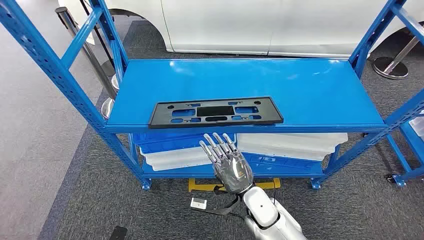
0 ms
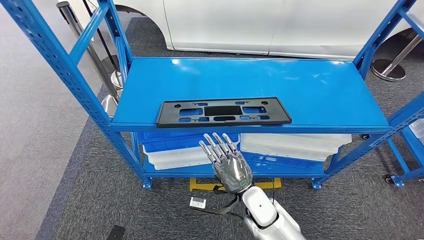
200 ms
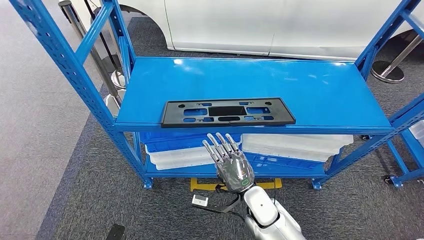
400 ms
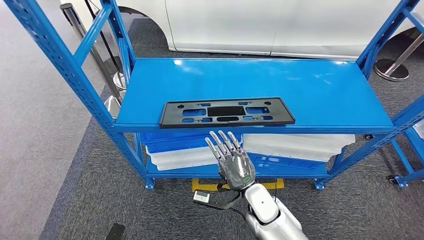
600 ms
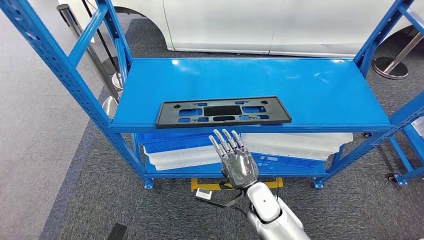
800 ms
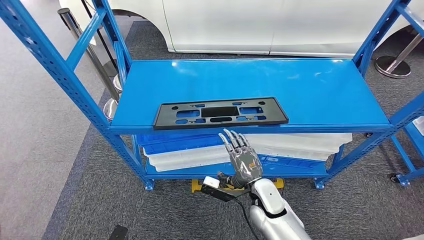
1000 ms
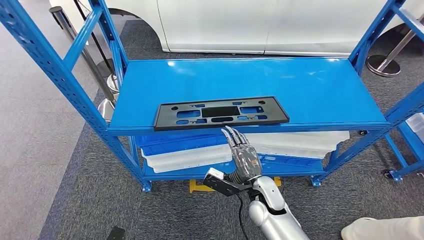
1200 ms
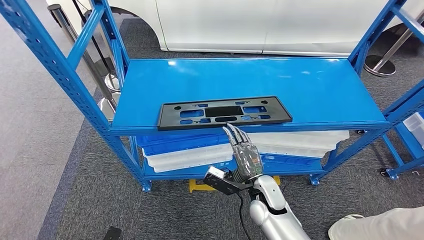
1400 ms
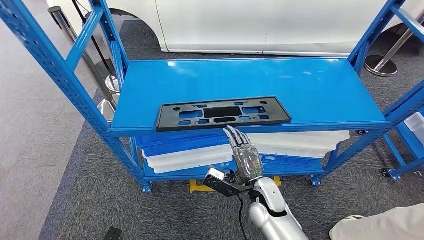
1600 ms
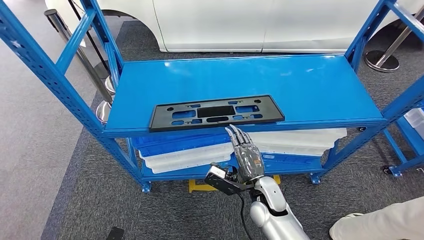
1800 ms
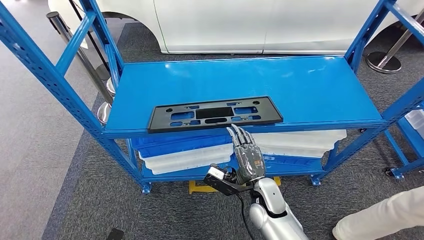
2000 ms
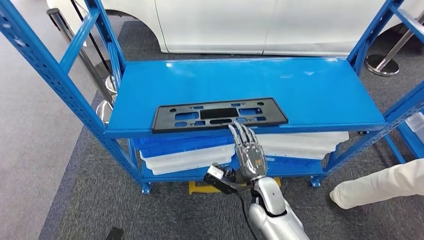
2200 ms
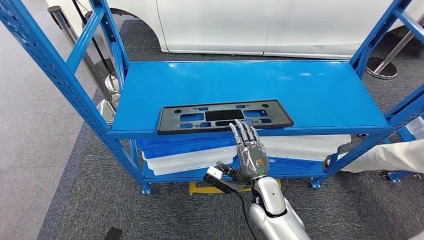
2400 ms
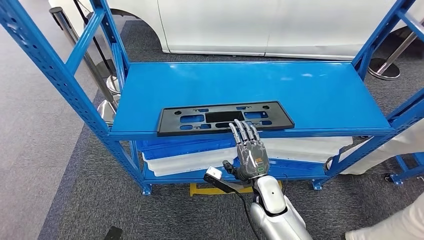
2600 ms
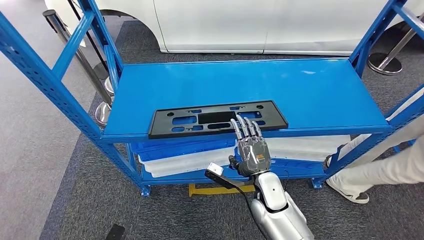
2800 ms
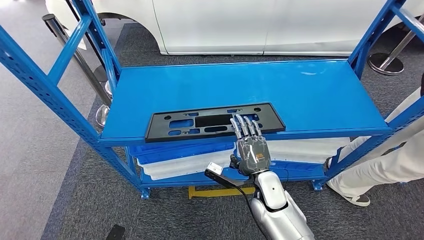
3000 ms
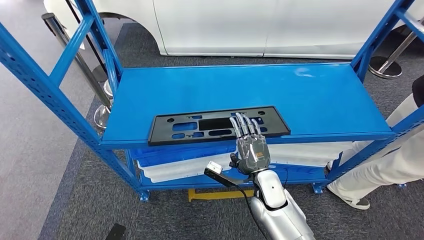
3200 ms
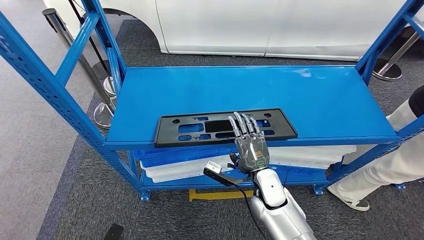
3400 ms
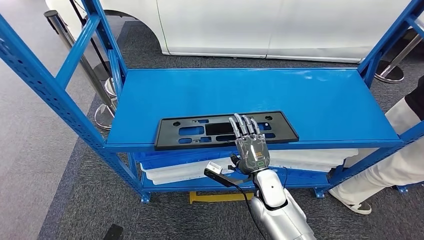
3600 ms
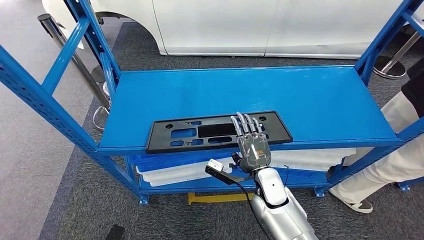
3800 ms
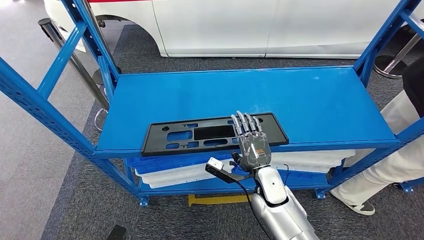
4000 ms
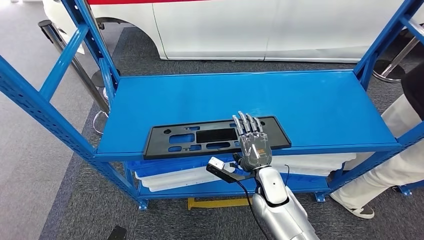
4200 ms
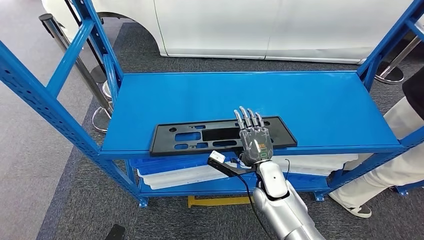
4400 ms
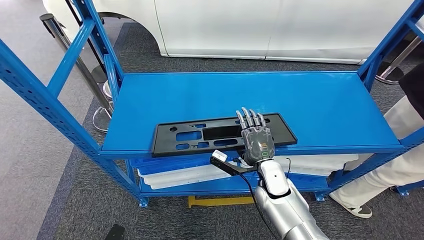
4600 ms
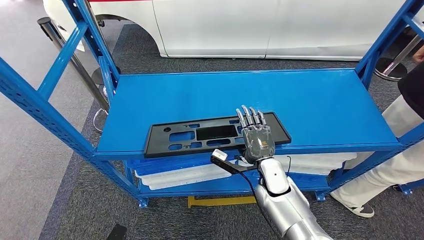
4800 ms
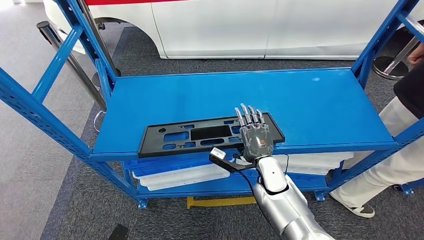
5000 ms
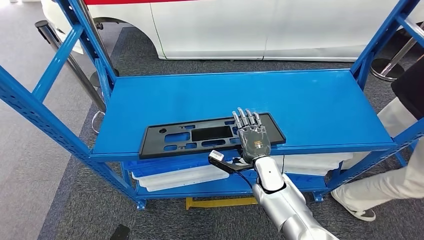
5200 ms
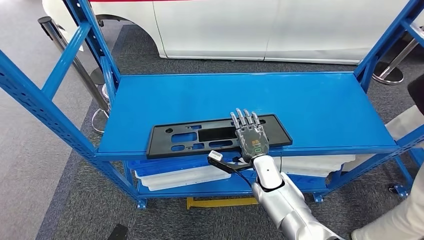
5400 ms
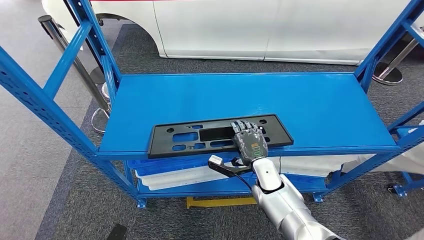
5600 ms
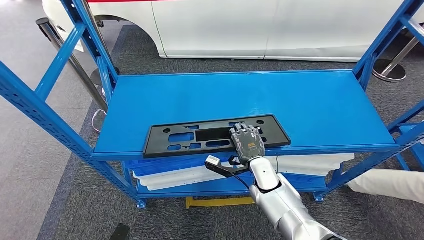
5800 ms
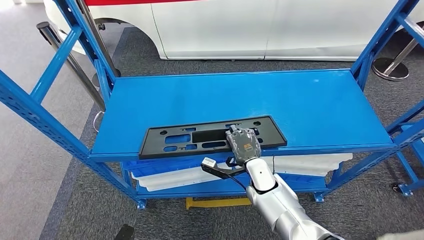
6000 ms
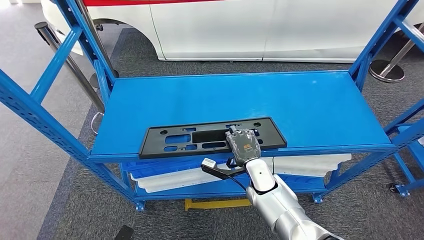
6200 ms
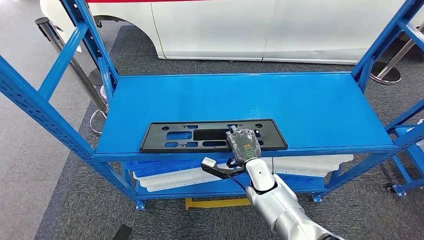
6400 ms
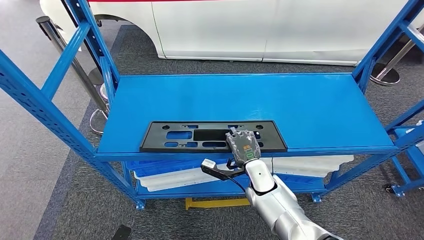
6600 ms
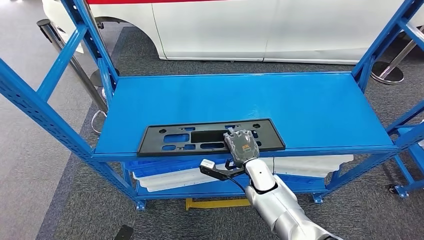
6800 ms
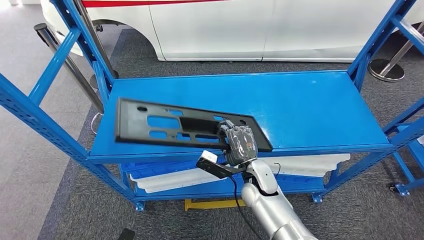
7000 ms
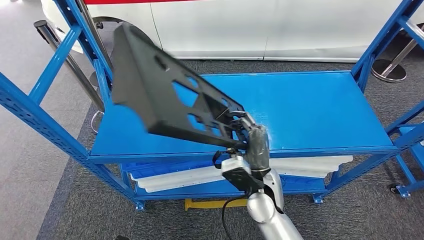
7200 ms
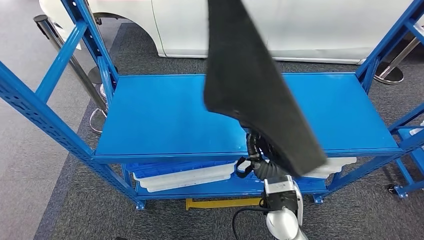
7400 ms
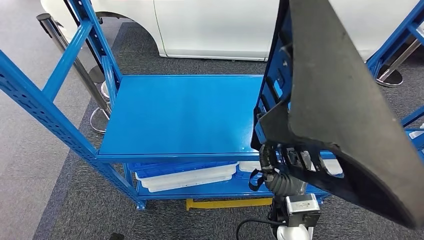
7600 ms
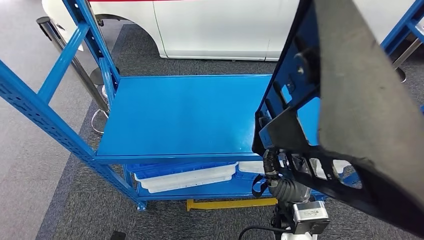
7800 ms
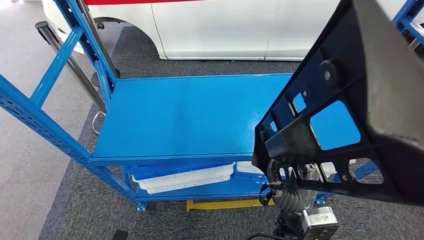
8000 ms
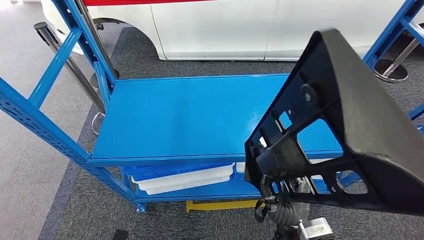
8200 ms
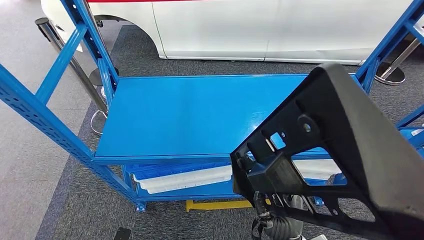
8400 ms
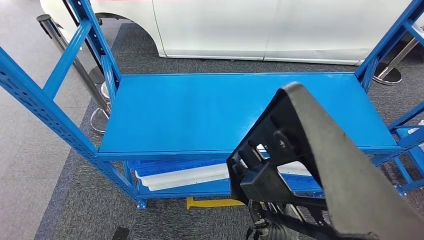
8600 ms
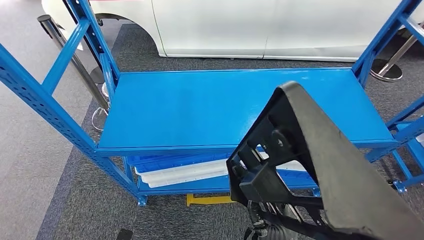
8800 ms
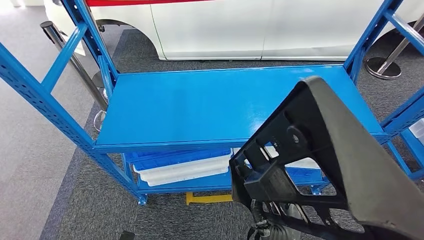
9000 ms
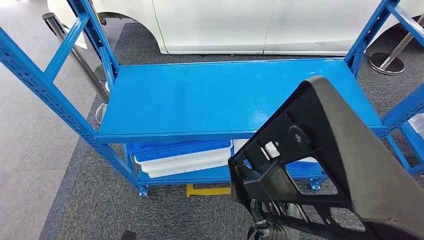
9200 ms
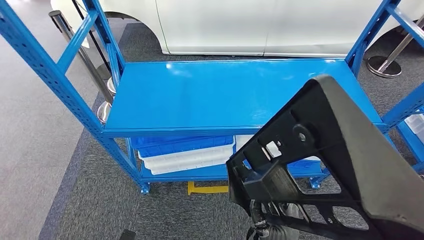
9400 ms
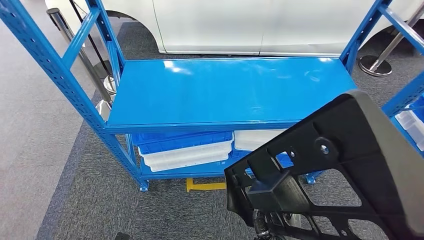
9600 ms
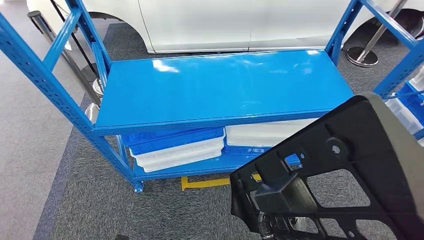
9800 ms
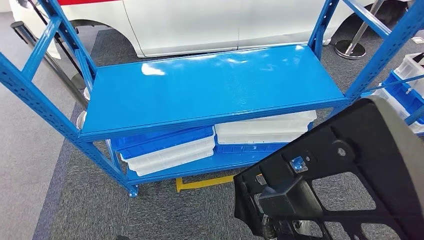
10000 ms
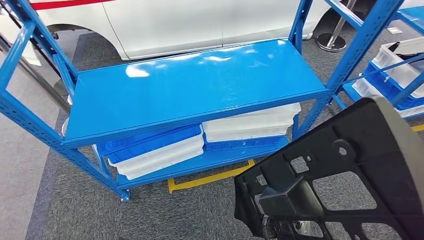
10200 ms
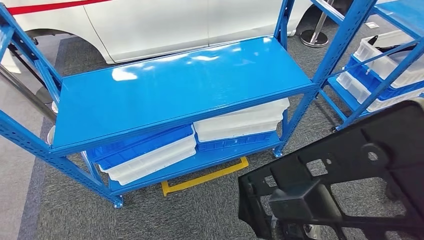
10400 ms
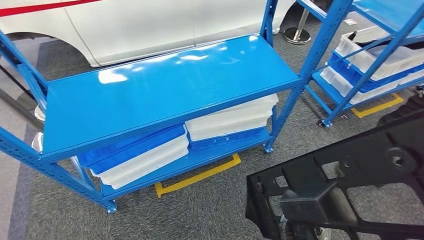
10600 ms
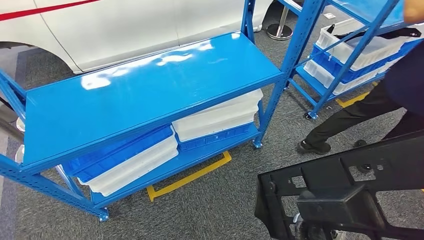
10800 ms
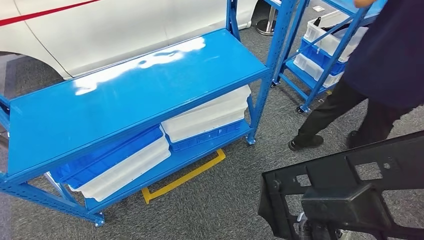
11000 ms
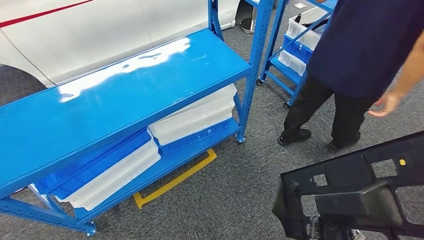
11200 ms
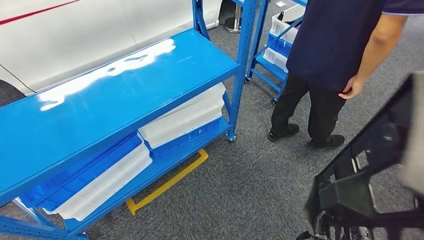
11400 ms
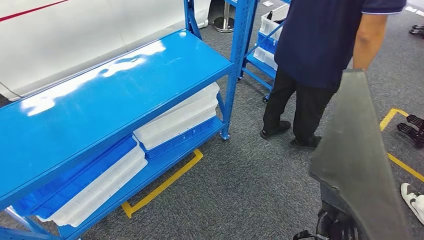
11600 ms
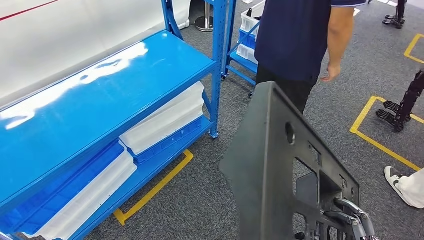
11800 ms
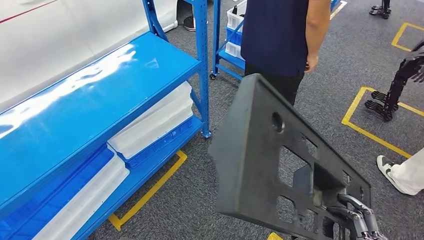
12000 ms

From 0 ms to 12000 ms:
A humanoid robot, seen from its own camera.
Step, from 0 ms to 8400 ms: Pick up the large material from the shelf.

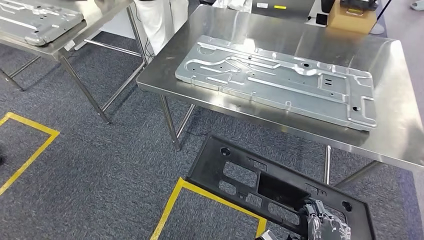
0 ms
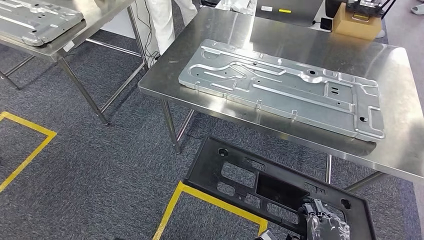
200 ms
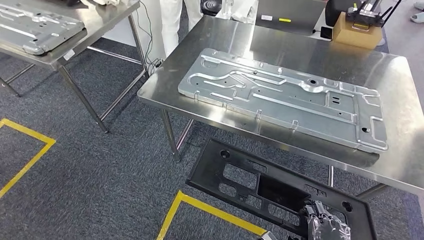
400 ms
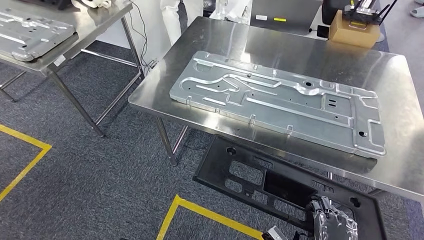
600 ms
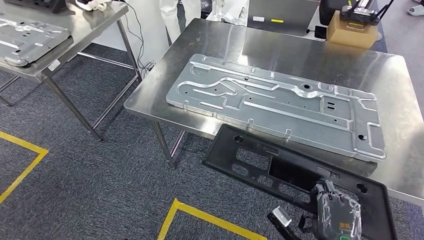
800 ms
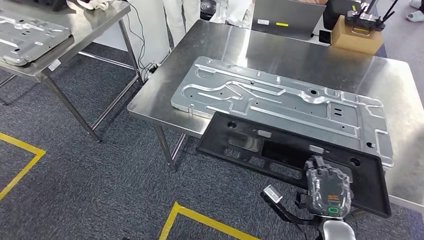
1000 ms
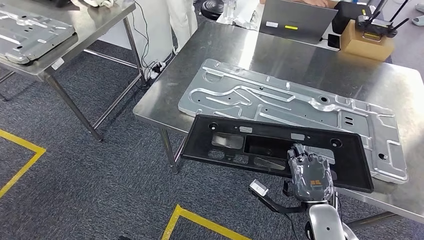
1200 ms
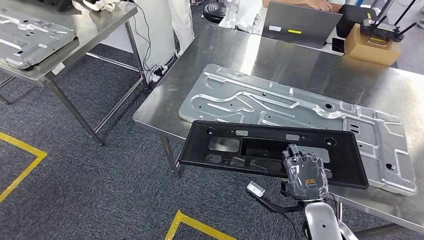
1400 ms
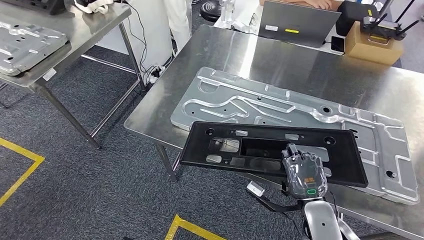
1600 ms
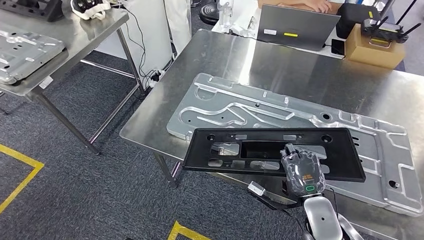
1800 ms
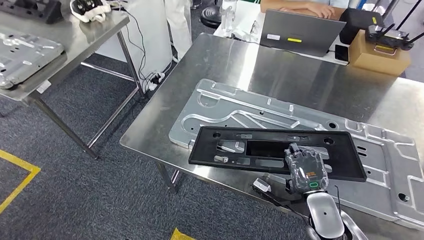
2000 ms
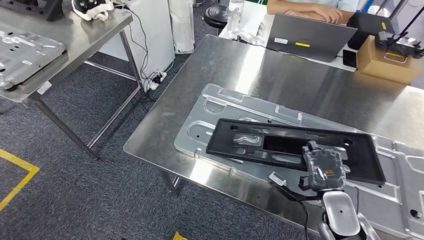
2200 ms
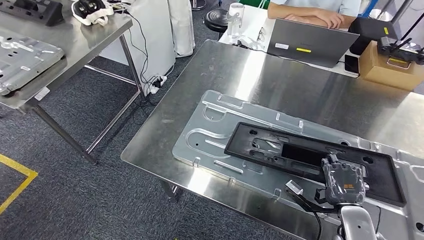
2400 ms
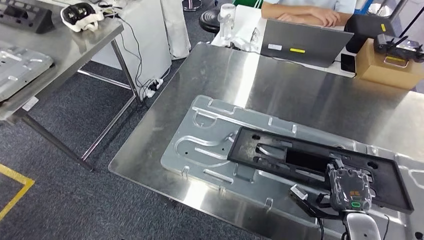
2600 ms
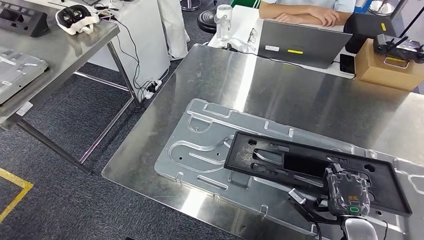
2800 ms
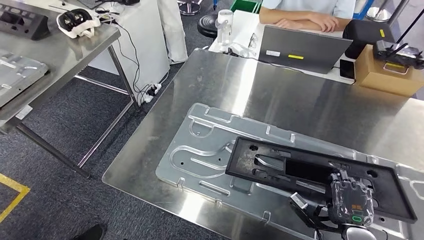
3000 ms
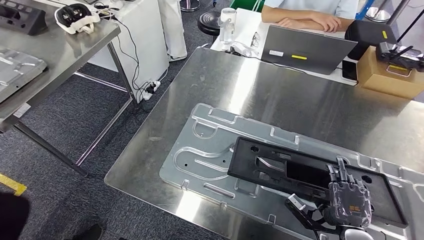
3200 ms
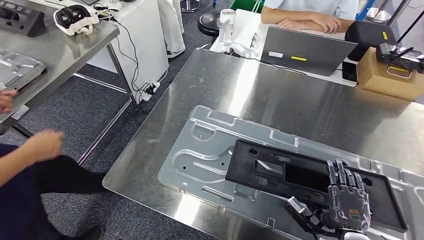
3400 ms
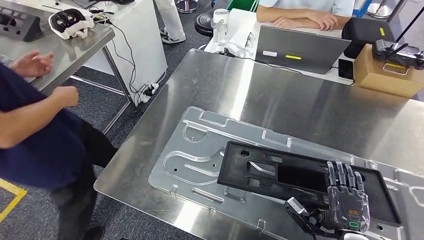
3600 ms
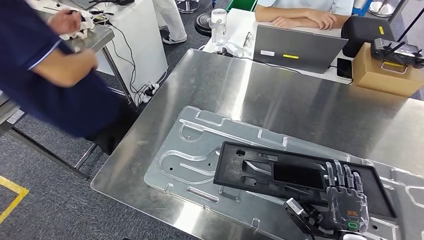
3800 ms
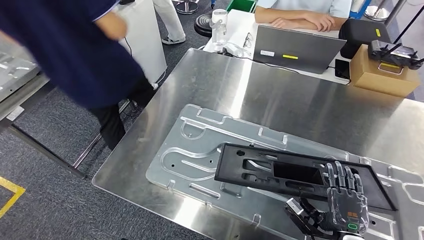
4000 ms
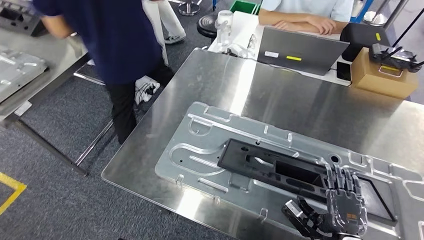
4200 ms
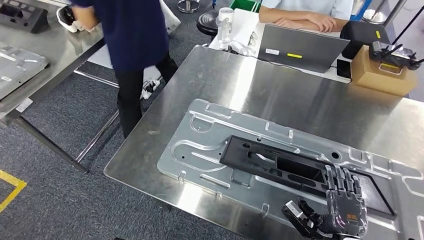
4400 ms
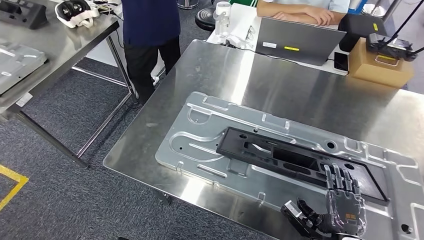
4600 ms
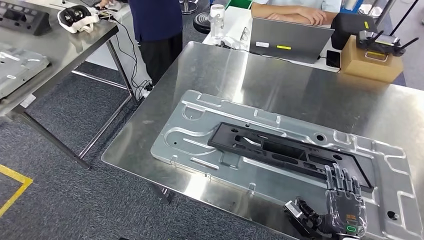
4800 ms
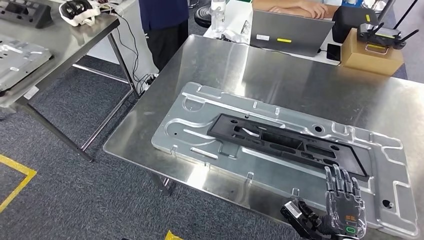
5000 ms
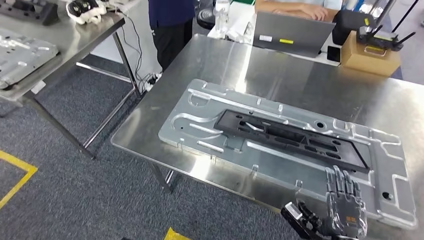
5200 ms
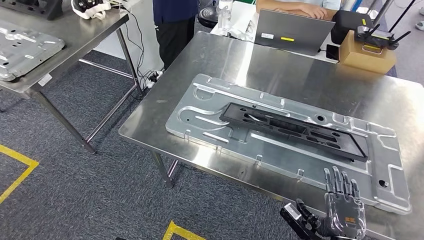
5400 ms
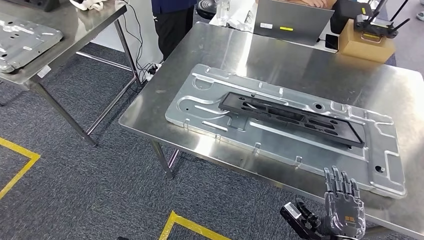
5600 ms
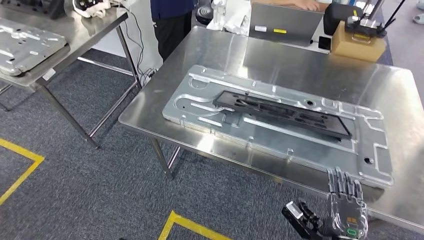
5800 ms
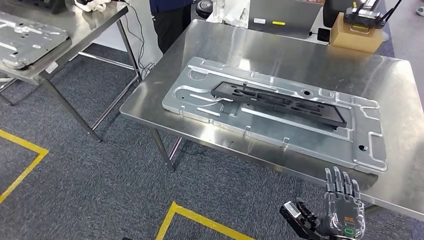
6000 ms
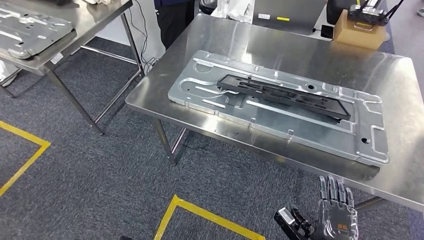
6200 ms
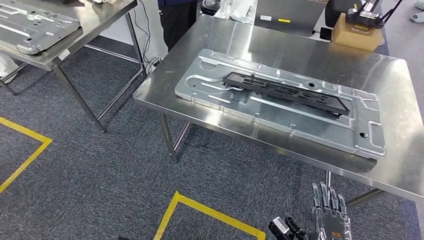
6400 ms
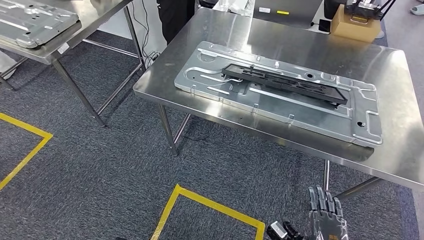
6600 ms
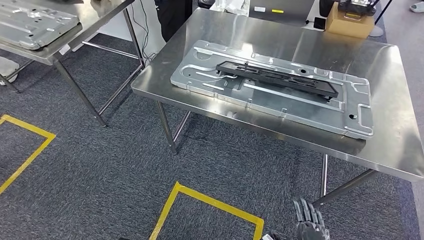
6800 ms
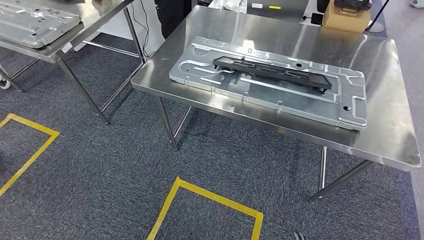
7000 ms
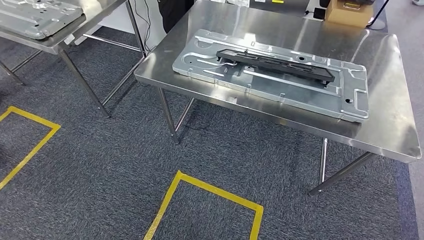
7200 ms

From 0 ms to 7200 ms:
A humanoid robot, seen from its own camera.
Step, from 3000 ms to 6400 ms: Insert the large material into the corresponding slot on the workbench.
